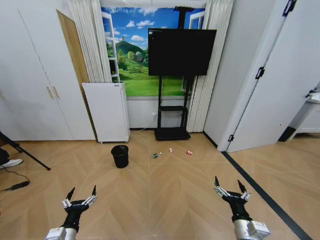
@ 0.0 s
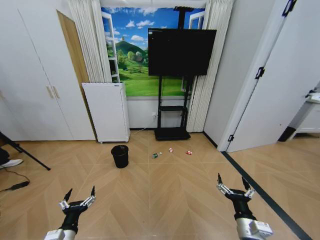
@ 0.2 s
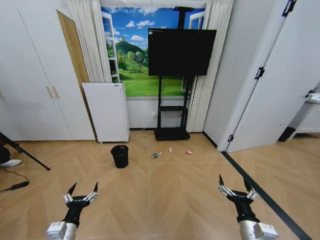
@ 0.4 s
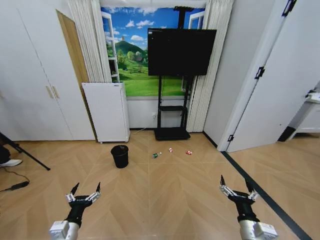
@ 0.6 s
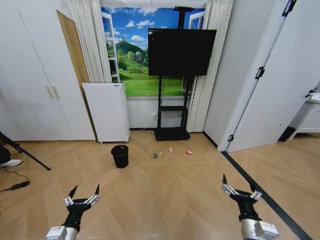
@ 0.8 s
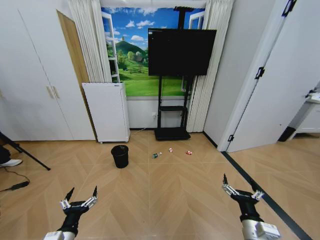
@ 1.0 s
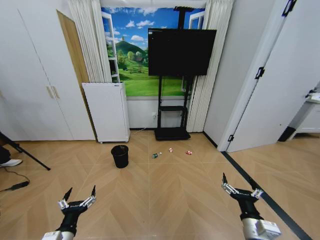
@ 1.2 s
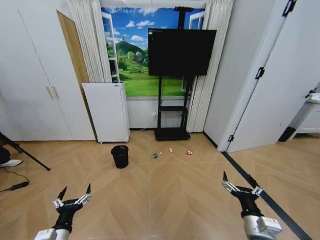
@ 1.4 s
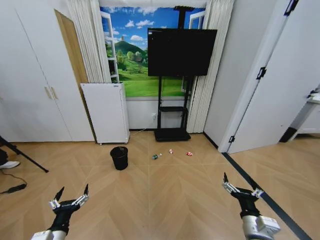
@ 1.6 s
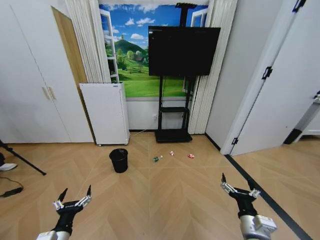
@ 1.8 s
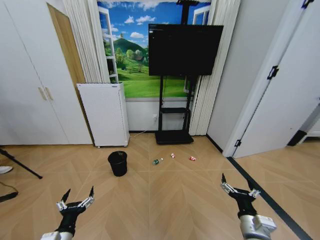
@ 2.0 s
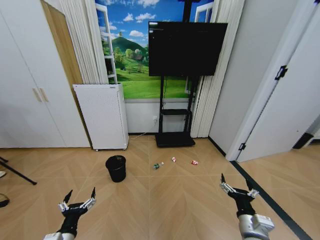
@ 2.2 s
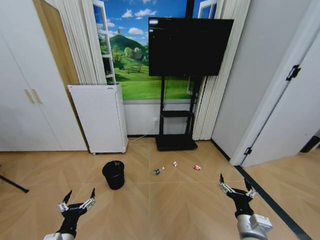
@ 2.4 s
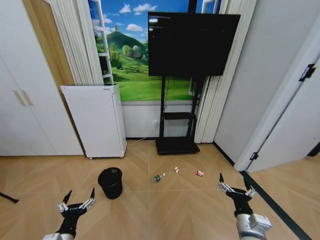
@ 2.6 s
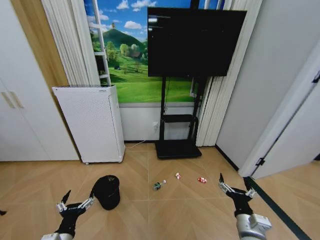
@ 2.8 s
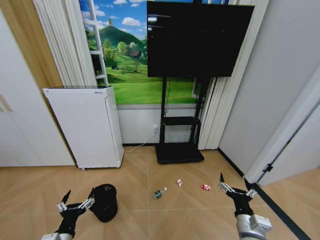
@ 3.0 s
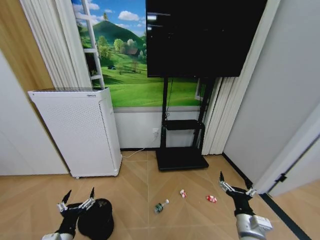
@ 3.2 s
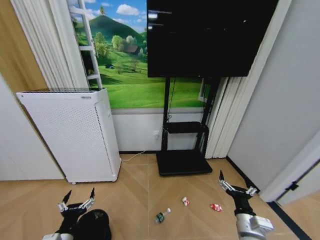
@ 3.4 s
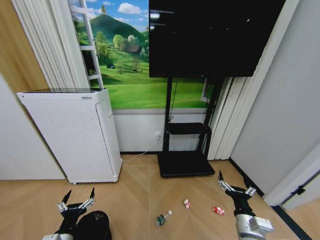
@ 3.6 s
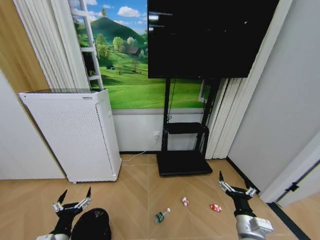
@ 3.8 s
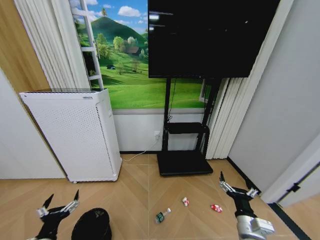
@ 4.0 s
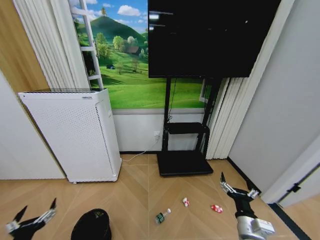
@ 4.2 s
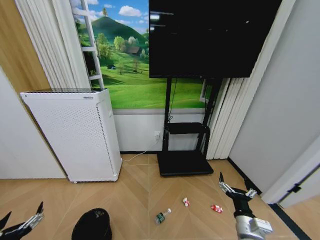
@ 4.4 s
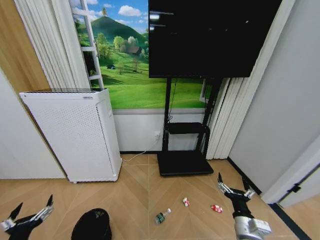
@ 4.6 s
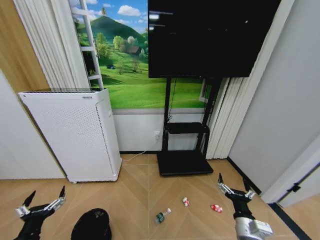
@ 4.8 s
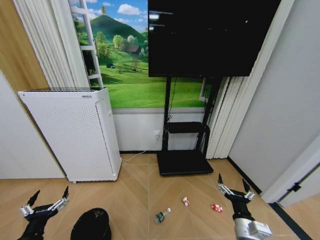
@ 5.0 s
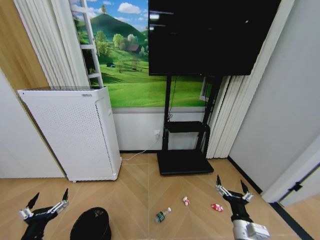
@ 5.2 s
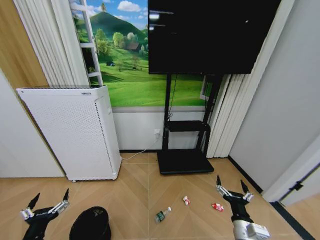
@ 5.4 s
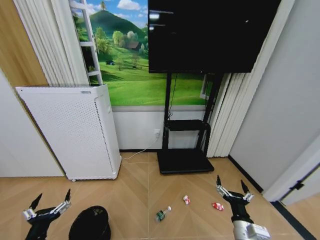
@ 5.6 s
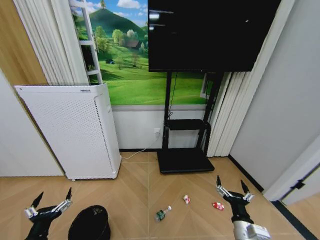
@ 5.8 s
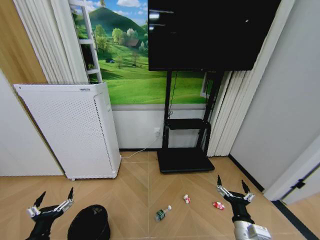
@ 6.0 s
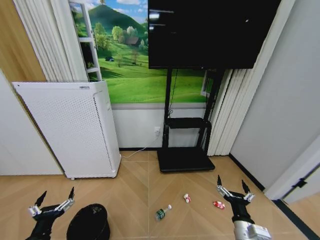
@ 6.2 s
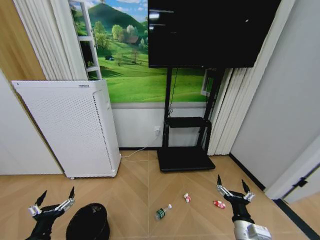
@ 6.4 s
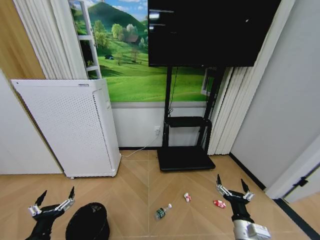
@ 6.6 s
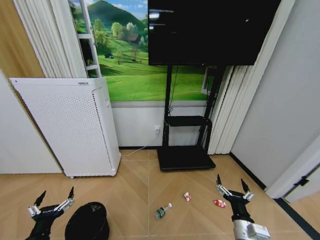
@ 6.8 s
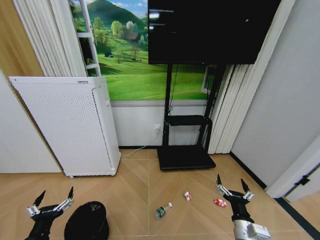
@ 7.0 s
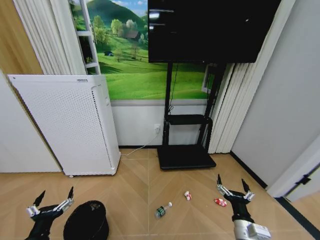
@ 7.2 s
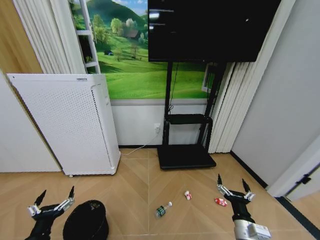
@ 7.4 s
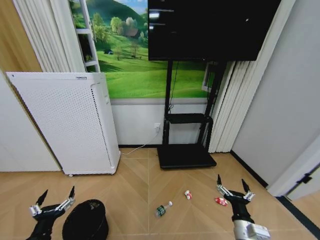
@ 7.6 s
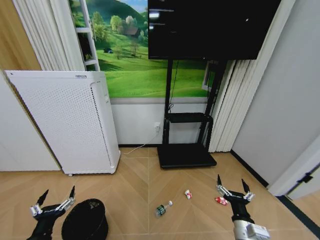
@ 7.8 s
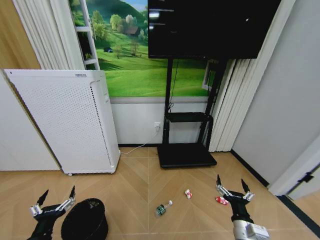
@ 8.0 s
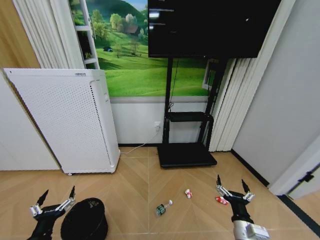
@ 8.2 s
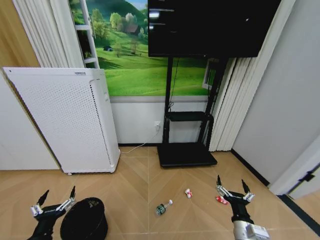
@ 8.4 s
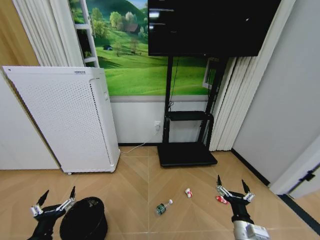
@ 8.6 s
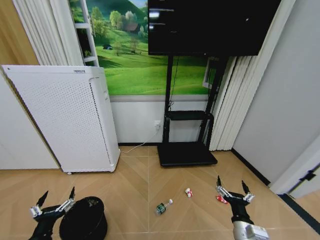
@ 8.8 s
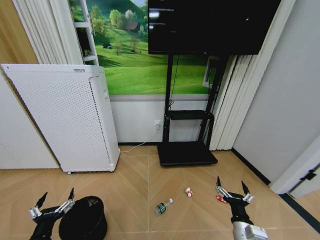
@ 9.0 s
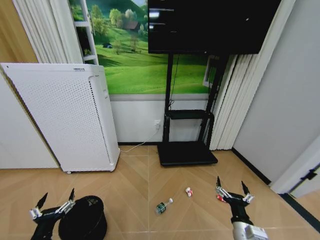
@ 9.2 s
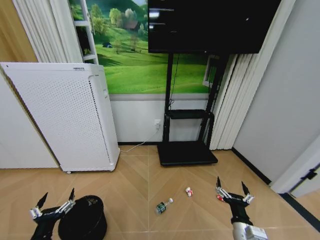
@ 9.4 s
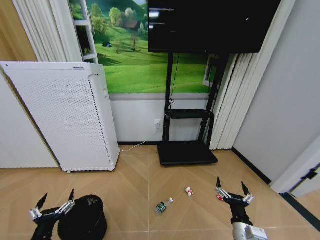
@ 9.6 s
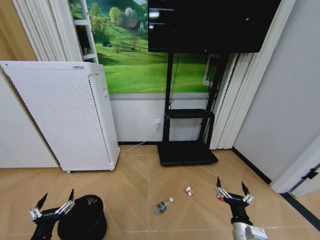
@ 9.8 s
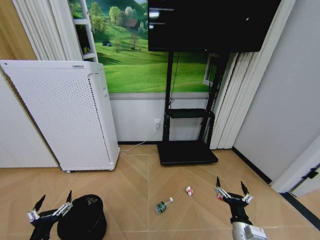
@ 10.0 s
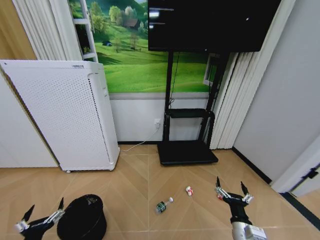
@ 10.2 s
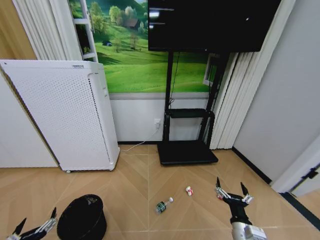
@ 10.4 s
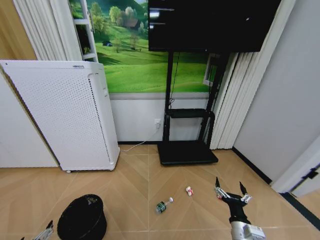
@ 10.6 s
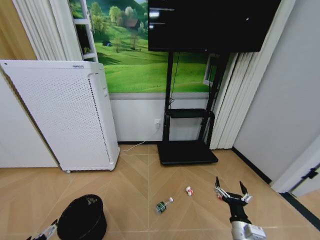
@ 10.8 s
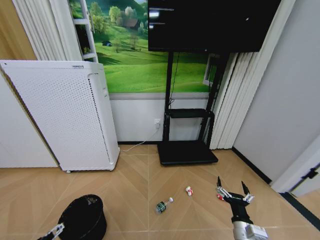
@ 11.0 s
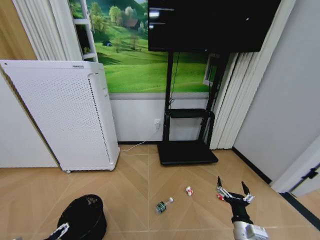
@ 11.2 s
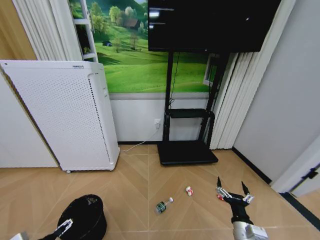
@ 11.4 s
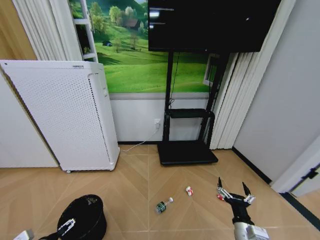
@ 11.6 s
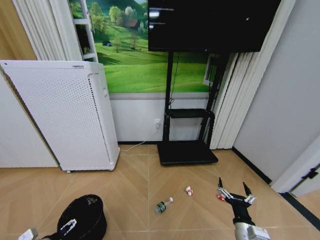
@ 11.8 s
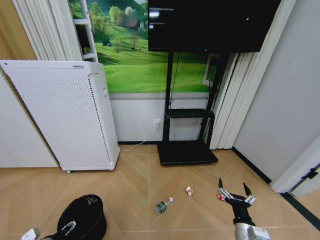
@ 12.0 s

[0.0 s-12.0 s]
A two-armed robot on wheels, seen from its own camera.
Task of the whole recording: Pick up the trash bin and place the garbage on the floor into it.
3.0 to 4.4 s: The left gripper shifts approximately 15 cm to the left and backward.
4.4 to 6.0 s: The left gripper travels to the right by roughly 5 cm.
6.0 to 9.0 s: The two grippers keep their place.
9.0 to 10.4 s: The left gripper changes place by about 5 cm.
10.4 to 12.0 s: The left gripper heads forward and to the left, covering some 10 cm.

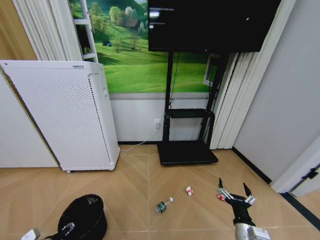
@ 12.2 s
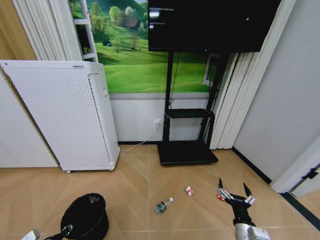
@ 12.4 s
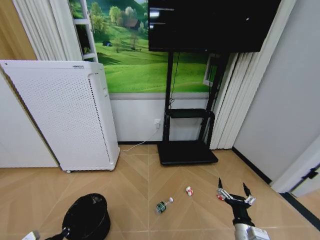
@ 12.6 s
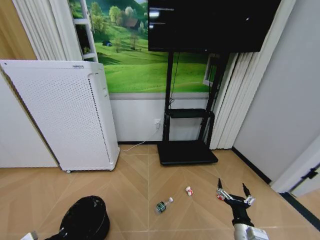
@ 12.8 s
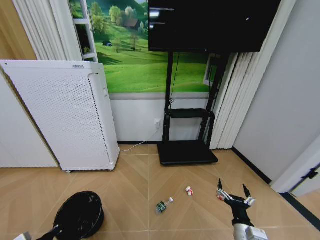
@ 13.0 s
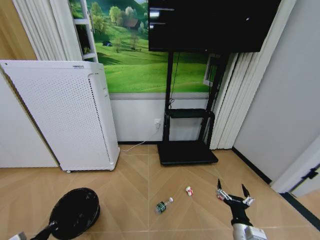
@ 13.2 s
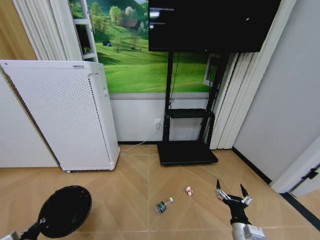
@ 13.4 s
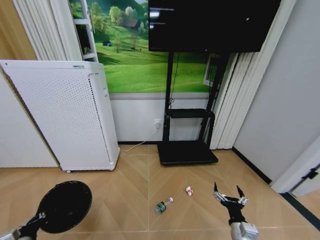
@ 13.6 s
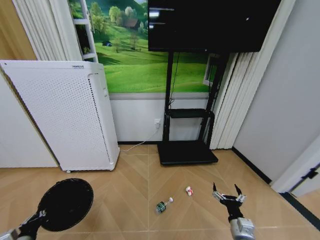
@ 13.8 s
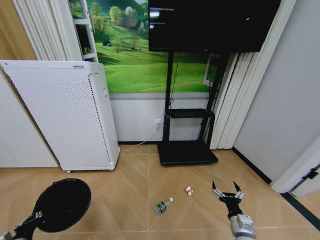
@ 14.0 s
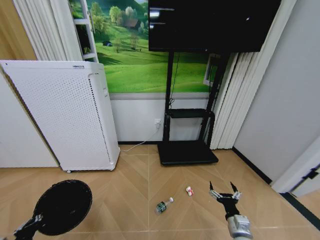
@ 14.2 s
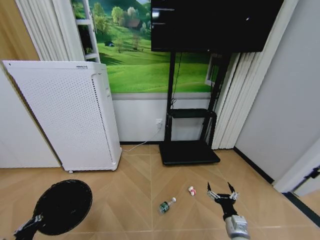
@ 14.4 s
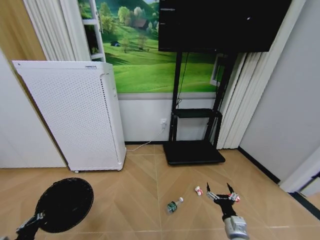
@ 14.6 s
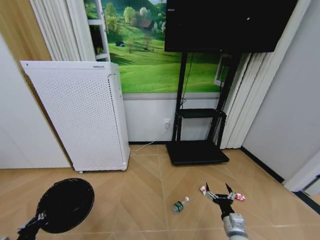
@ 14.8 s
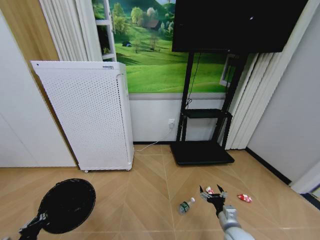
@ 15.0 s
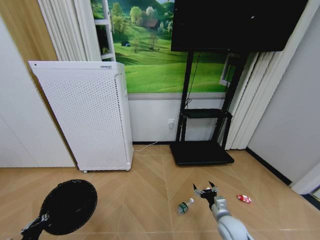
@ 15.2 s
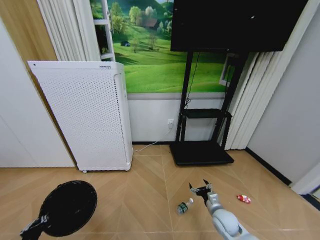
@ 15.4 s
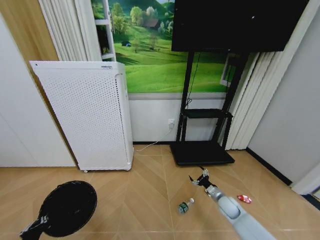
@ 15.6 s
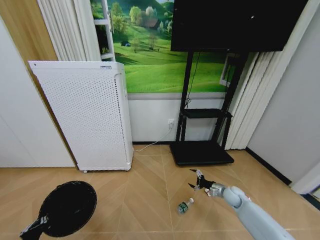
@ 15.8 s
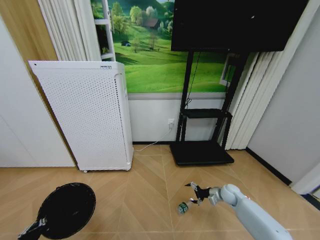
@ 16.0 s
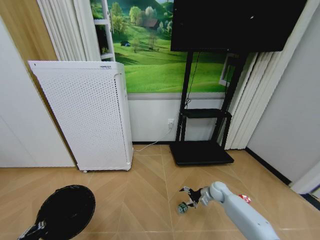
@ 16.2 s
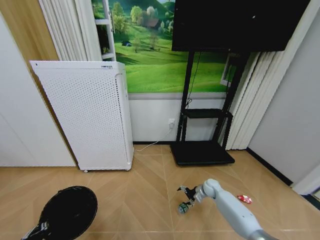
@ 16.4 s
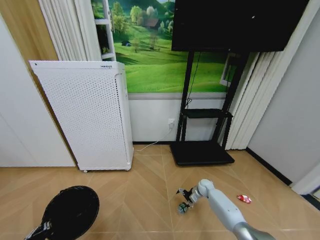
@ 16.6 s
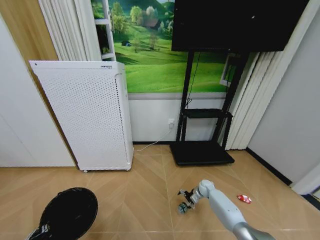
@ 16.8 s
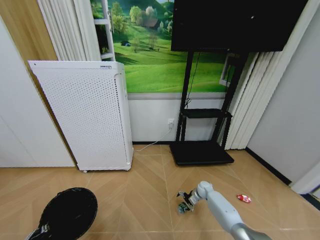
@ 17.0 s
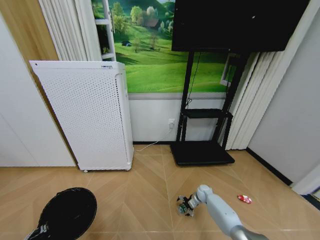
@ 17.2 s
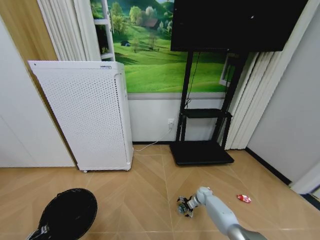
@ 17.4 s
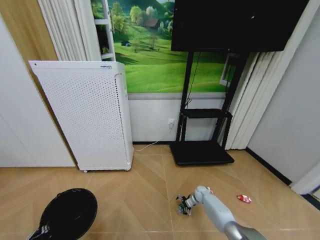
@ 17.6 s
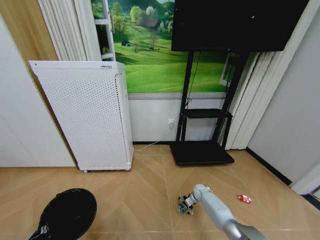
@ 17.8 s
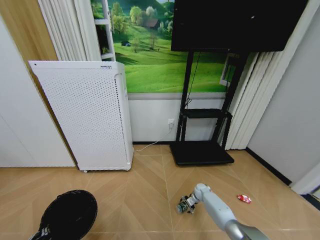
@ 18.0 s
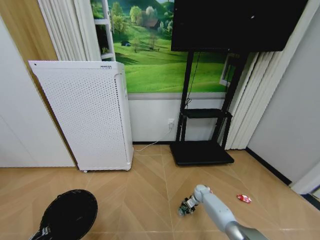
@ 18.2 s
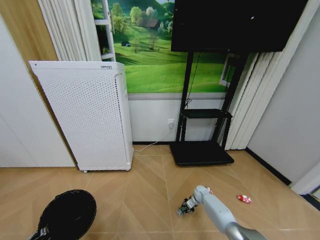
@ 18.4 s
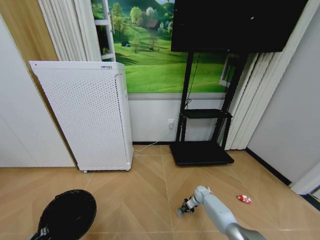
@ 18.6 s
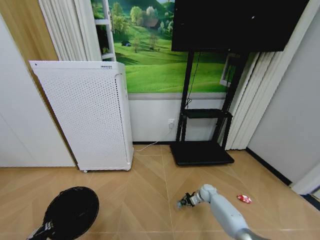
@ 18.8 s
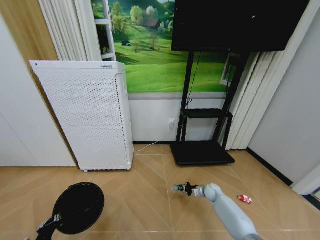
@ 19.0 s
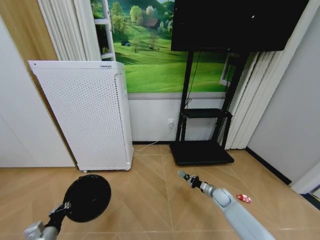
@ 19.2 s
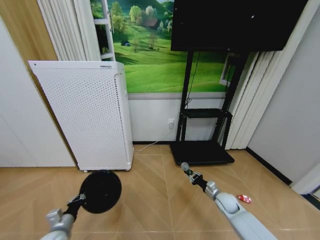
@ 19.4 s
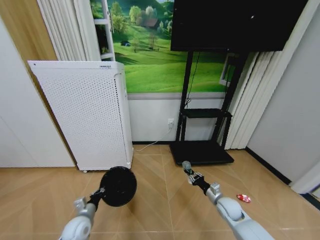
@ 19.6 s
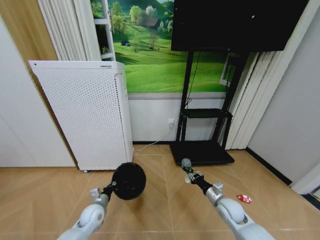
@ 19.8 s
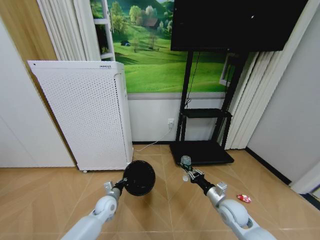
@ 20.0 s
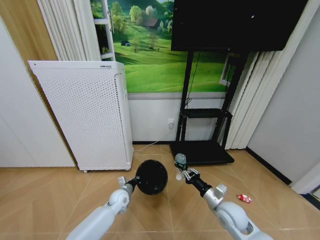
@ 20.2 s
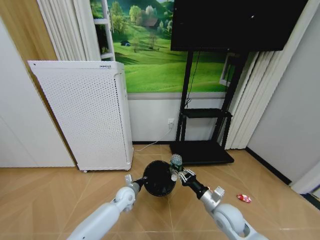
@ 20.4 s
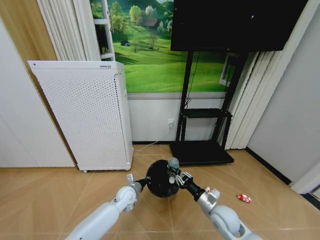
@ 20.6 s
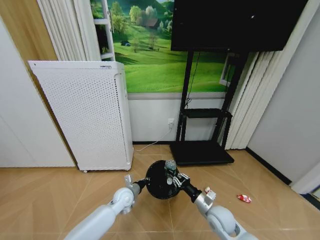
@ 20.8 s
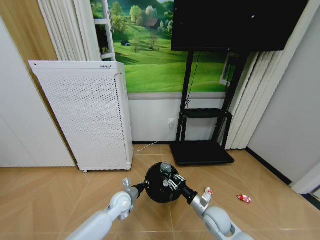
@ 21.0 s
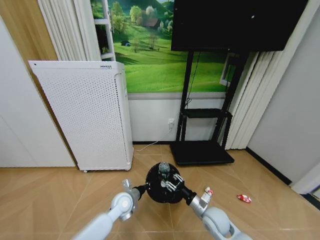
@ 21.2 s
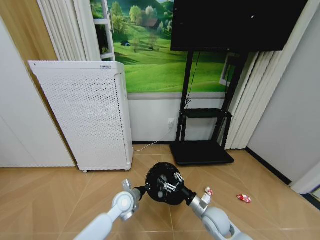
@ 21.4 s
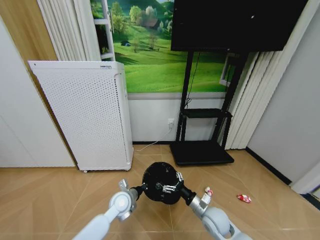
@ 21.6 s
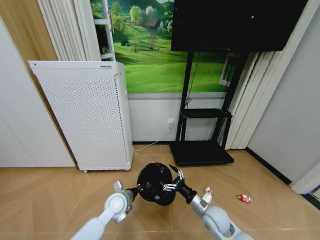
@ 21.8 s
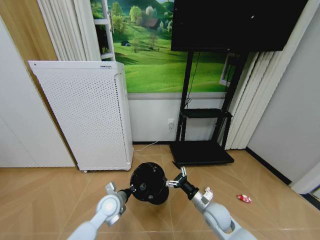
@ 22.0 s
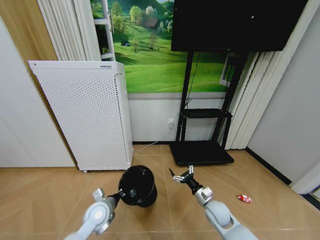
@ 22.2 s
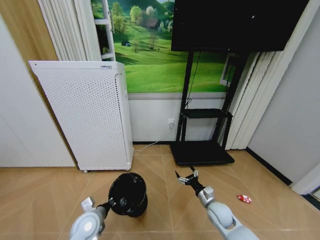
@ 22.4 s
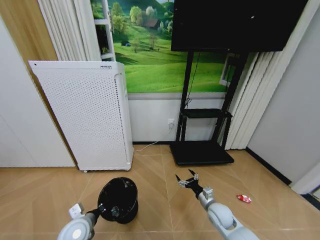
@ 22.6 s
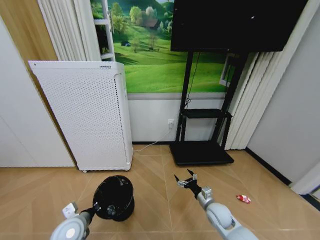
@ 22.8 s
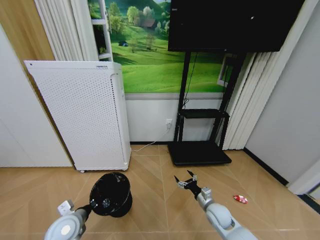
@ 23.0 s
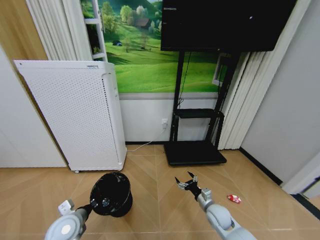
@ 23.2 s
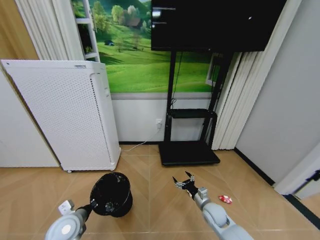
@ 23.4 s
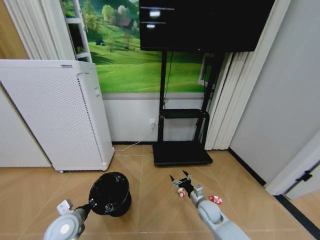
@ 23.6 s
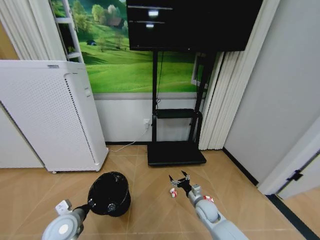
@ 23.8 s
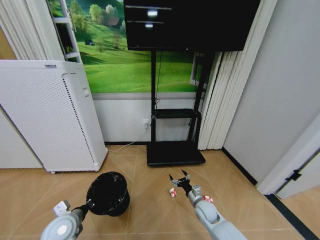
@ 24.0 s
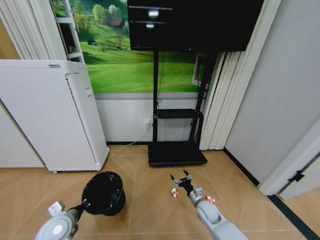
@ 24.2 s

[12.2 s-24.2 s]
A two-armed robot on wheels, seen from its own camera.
Task of the whole recording: Pick up the trash bin and place the garbage on the floor into it.
12.2 to 13.8 s: The right gripper moves about 5 cm. Meanwhile the left gripper moves about 5 cm, and closes.
13.8 to 15.2 s: The right gripper goes some 5 cm forward.
15.2 to 16.6 s: The right gripper goes some 25 cm forward.
16.6 to 18.2 s: The right gripper shifts roughly 5 cm downward, and closes.
18.2 to 19.8 s: The left gripper goes about 30 cm forward and to the right. The right gripper goes approximately 25 cm upward and backward, and closes up.
19.8 to 21.2 s: The left gripper travels to the right by some 10 cm; the right gripper goes about 10 cm to the left.
21.2 to 22.6 s: The left gripper goes approximately 15 cm to the left and backward, while the right gripper moves some 5 cm, and opens.
22.6 to 24.2 s: The right gripper moves roughly 5 cm. The left gripper goes about 5 cm to the left.
